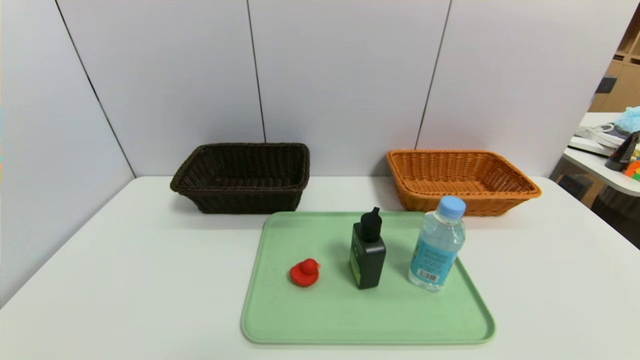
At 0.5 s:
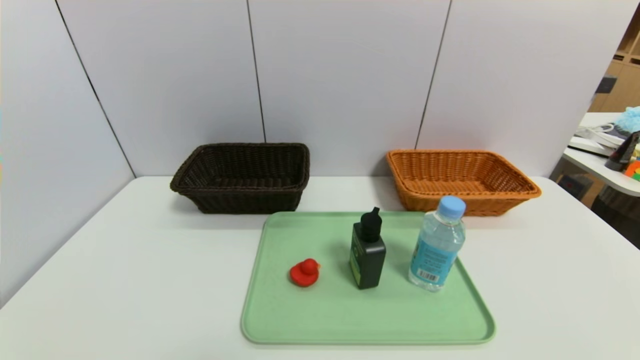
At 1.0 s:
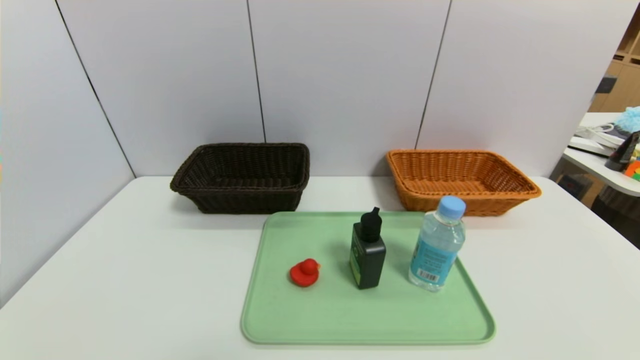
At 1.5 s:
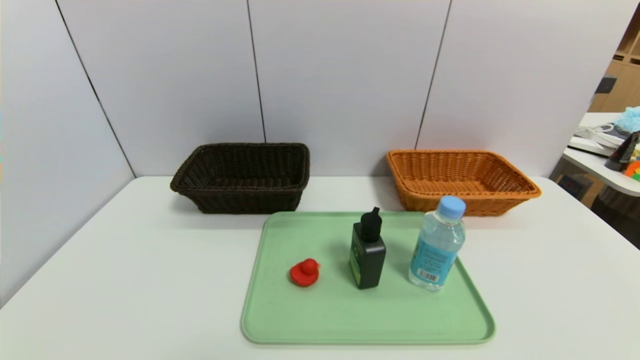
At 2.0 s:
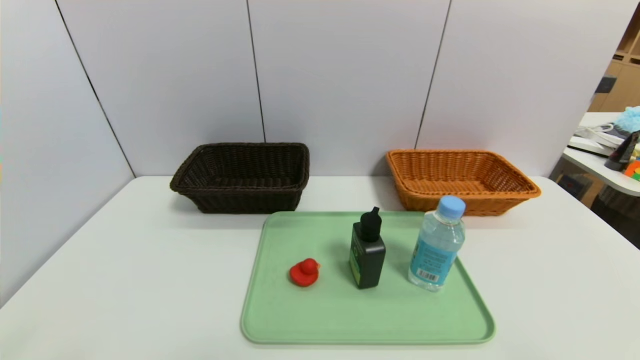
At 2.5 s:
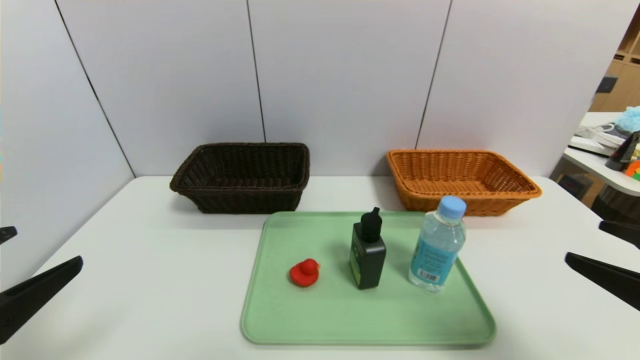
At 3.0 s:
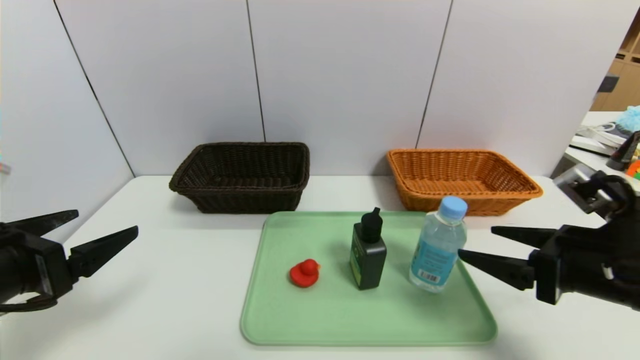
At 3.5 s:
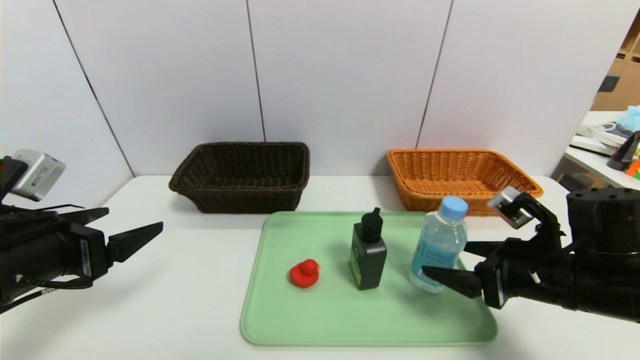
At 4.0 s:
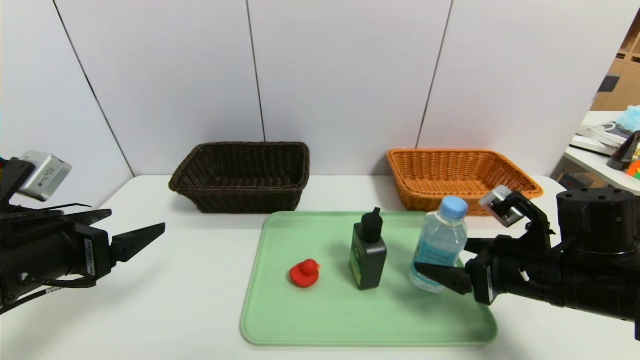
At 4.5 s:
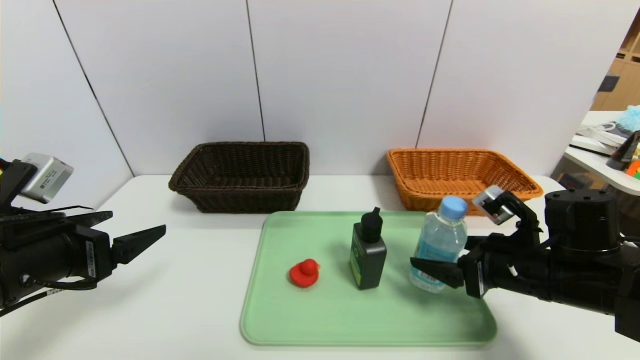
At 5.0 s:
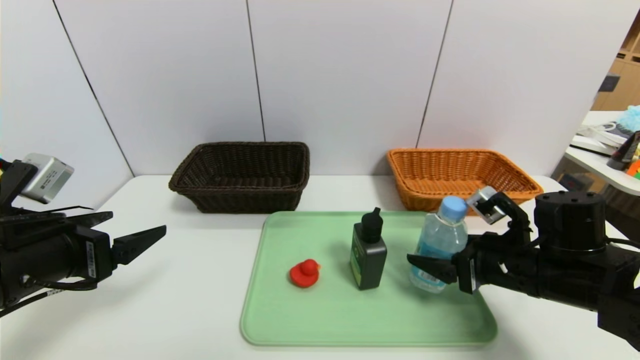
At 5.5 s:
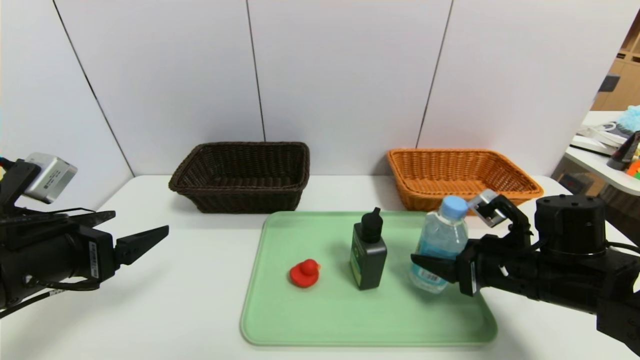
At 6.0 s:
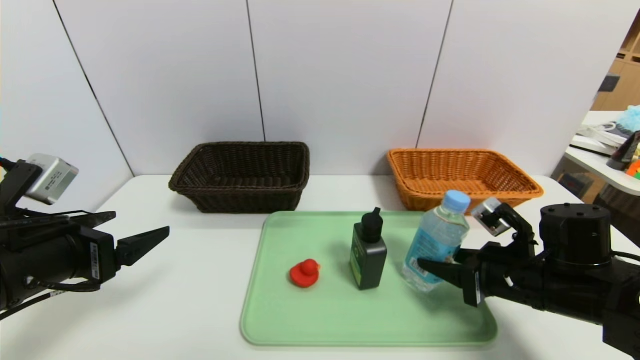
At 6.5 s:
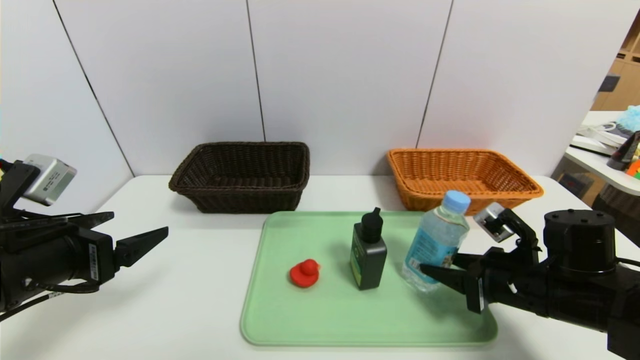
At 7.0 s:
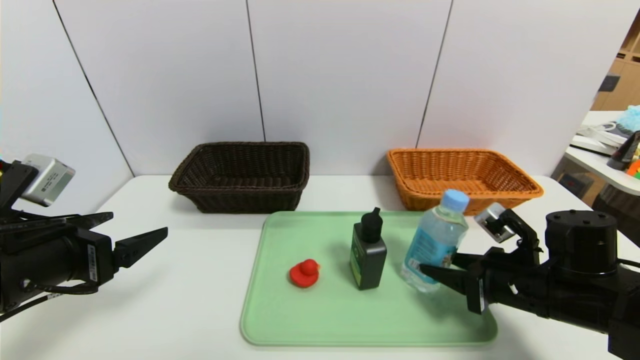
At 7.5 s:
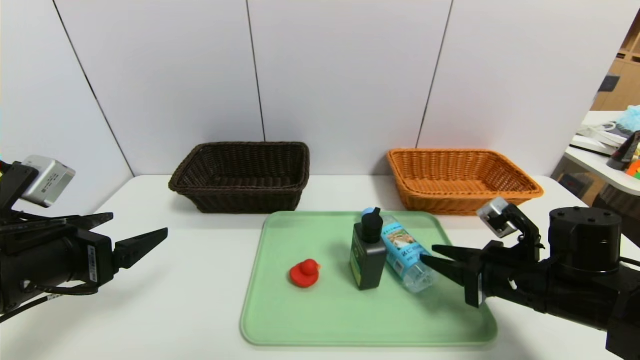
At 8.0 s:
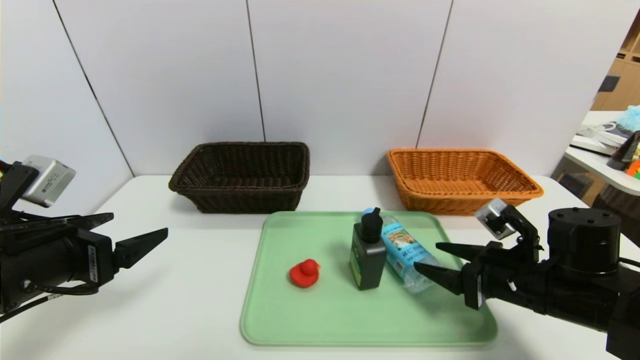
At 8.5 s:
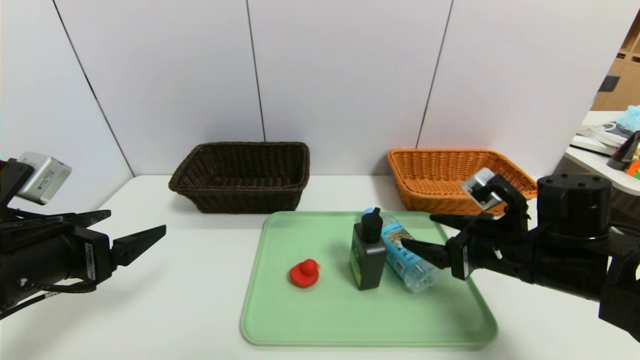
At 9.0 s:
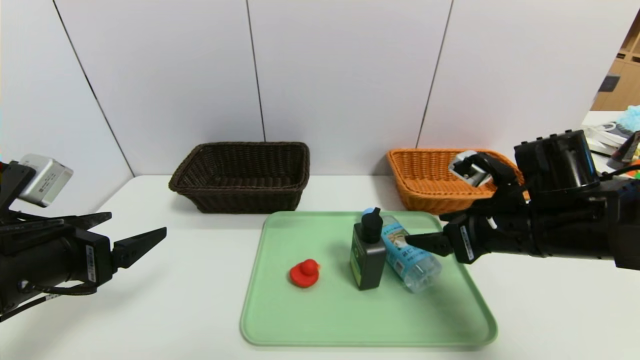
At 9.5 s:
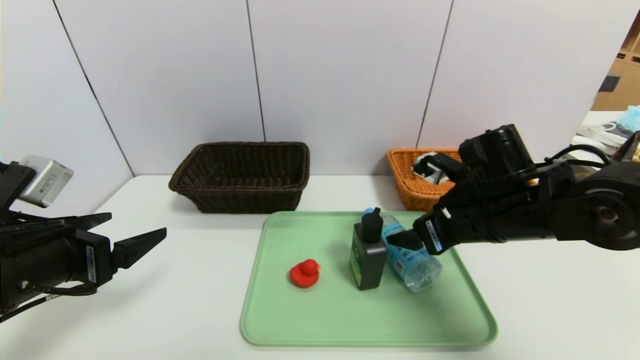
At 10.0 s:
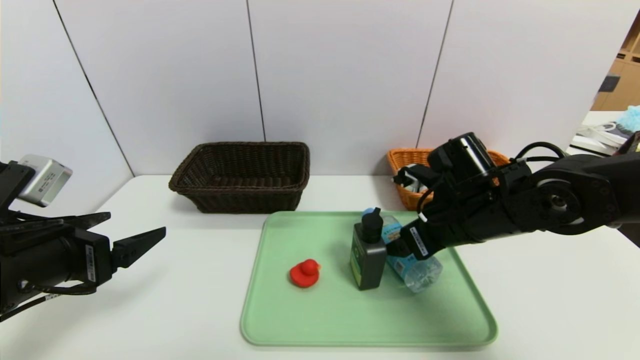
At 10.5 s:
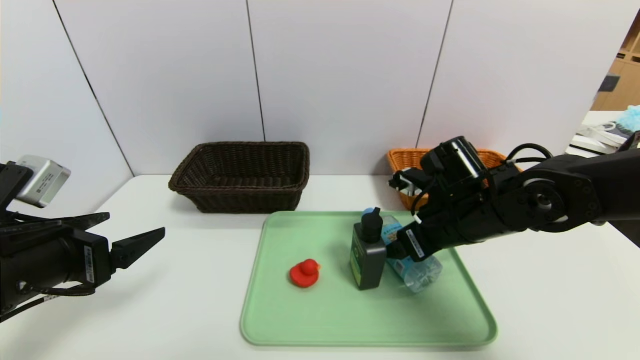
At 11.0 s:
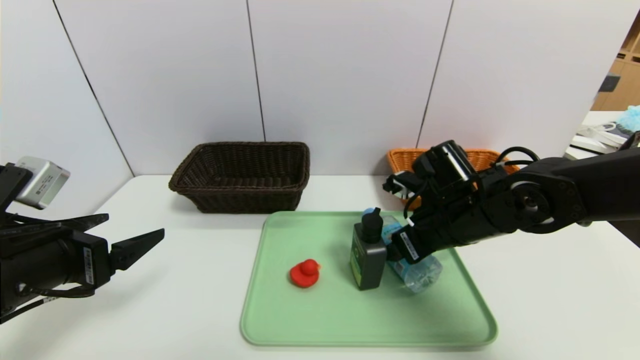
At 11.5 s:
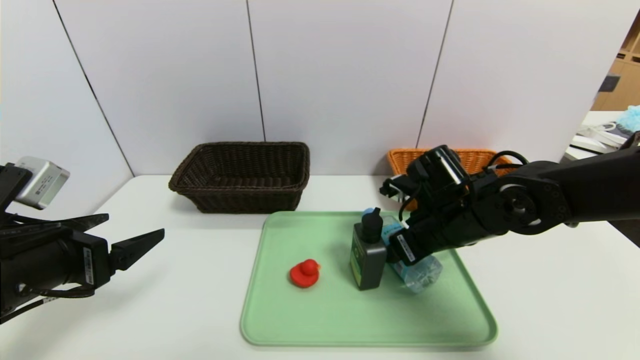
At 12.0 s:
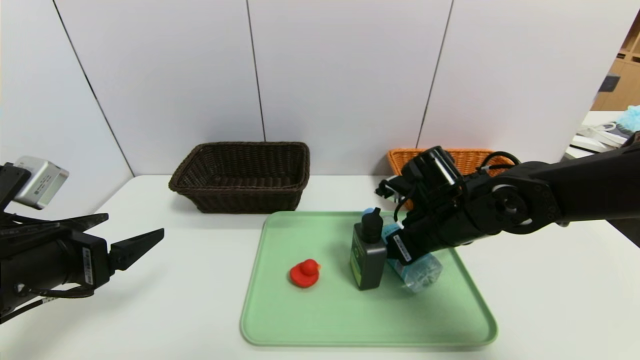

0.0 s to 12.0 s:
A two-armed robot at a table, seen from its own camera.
Task of the whole recording: place the food in the right basket with the right gripper, and place the non food items in the left basket with the left gripper.
2.0 to 4.0 s: Both grippers move forward, some 20 cm.
4.0 to 6.0 s: The right gripper closes up.
6.0 to 8.0 s: Neither gripper changes place.
8.0 to 10.0 s: The right gripper goes roughly 10 cm to the left, forward and upward.
10.0 to 12.0 s: The right gripper closes its fingers.

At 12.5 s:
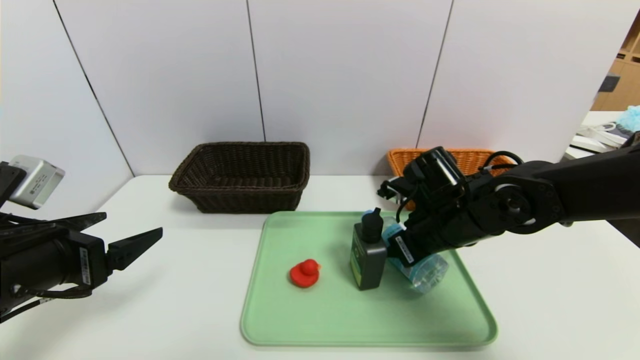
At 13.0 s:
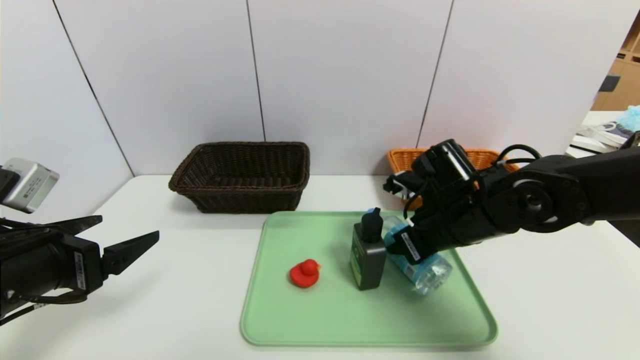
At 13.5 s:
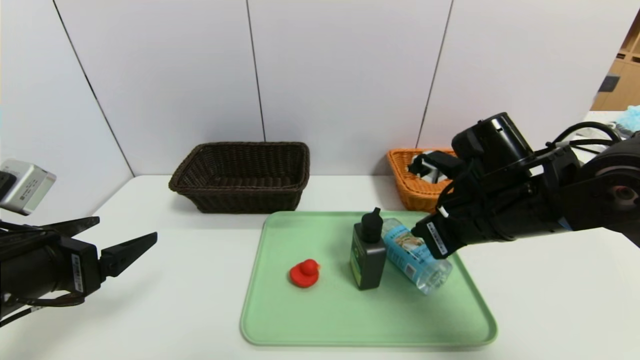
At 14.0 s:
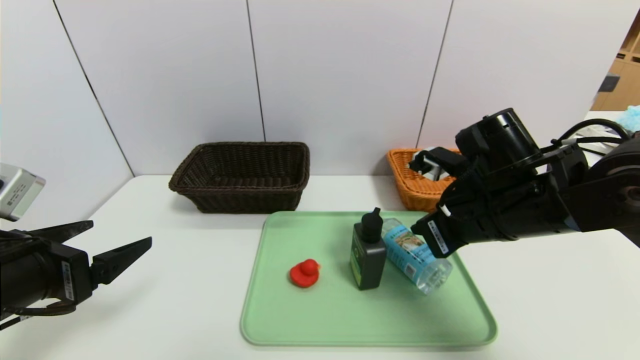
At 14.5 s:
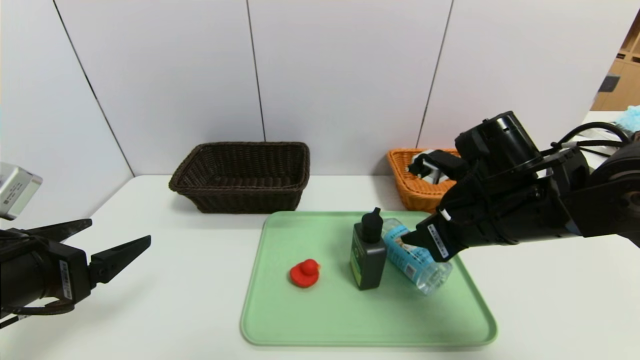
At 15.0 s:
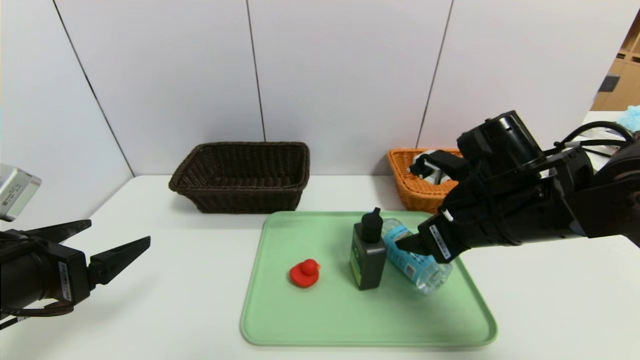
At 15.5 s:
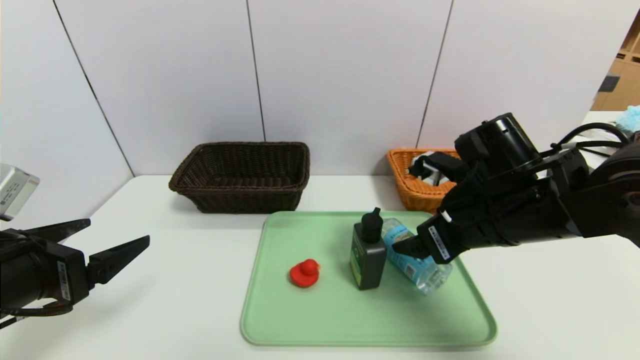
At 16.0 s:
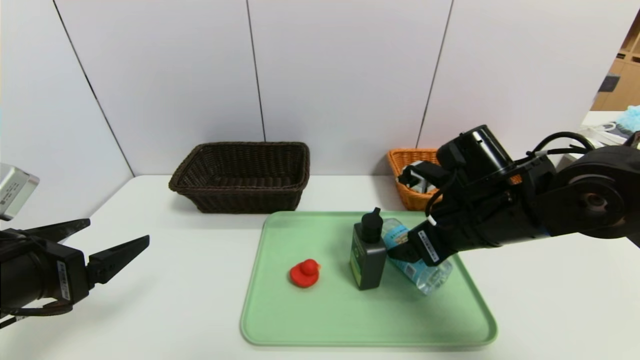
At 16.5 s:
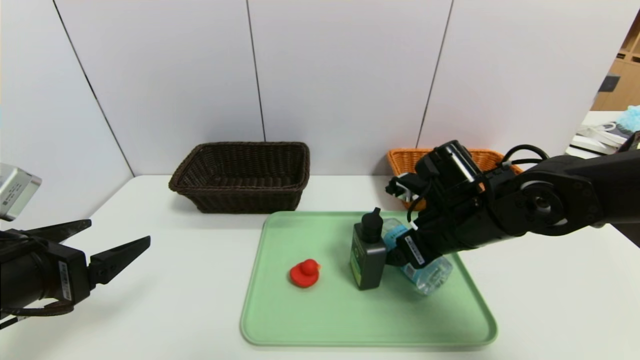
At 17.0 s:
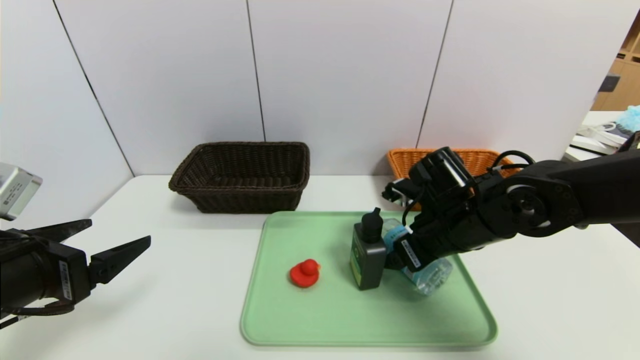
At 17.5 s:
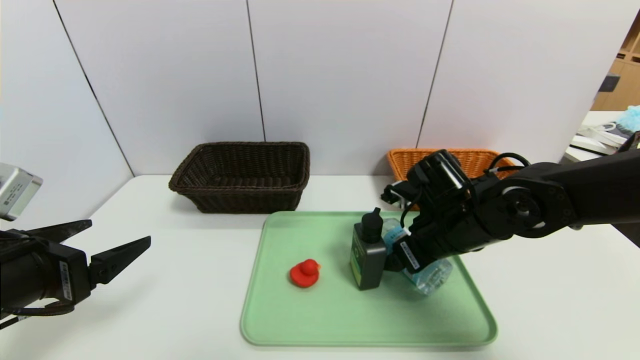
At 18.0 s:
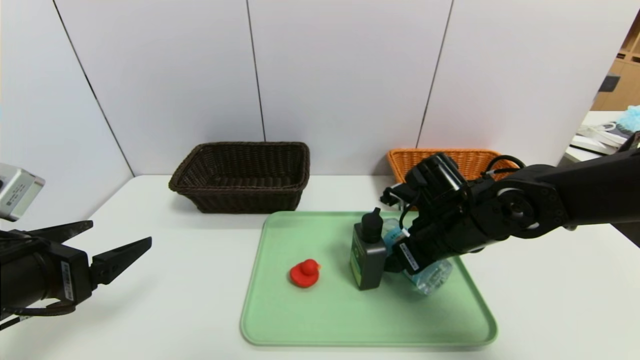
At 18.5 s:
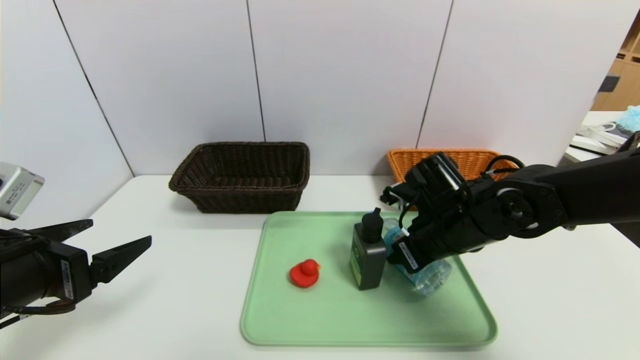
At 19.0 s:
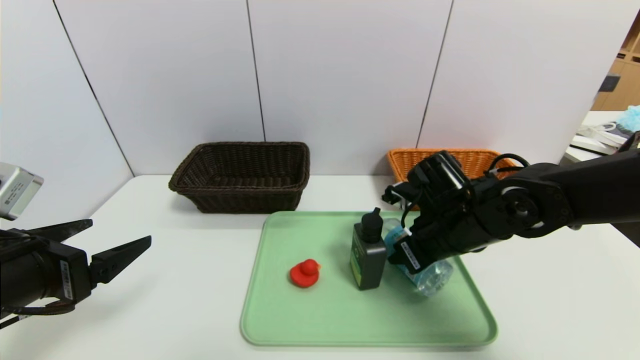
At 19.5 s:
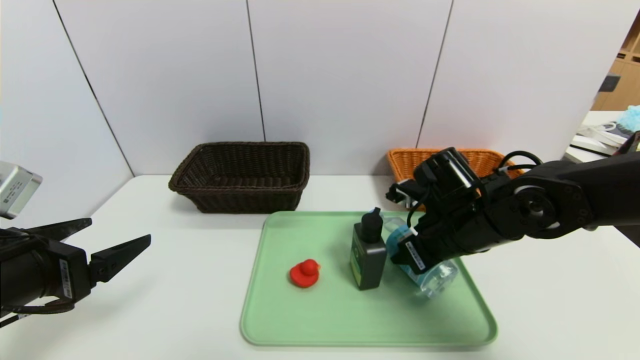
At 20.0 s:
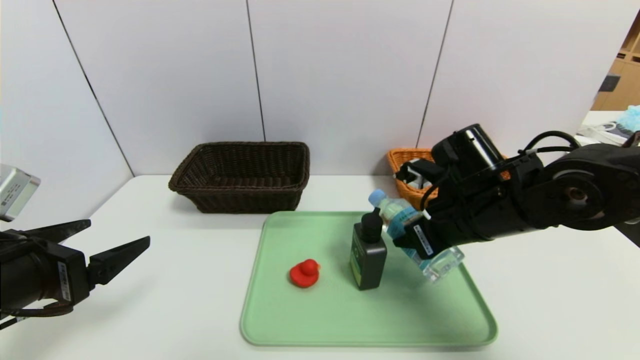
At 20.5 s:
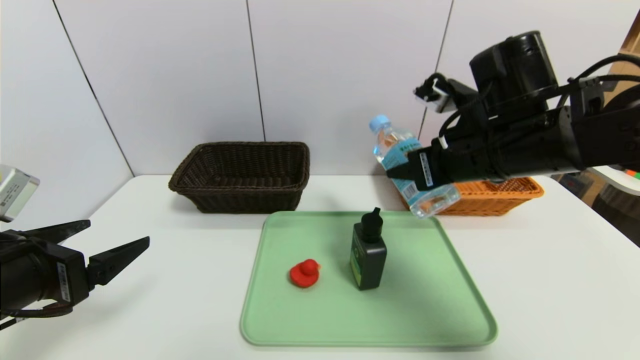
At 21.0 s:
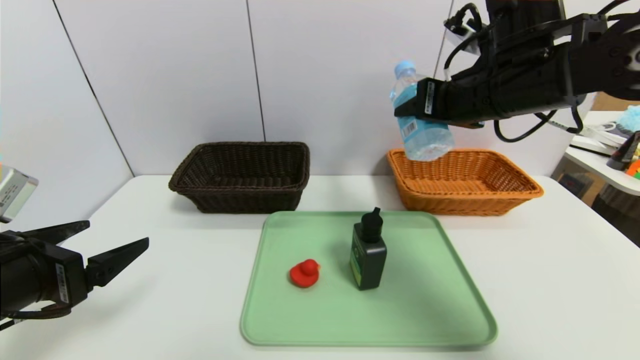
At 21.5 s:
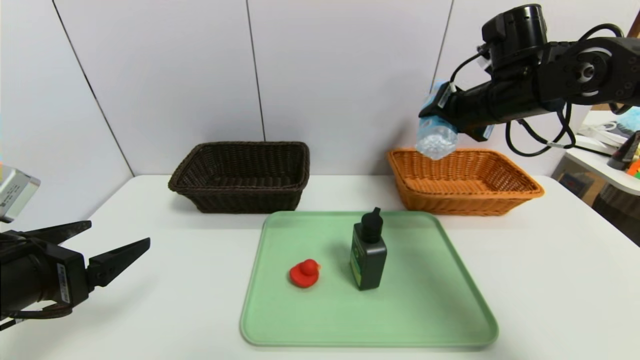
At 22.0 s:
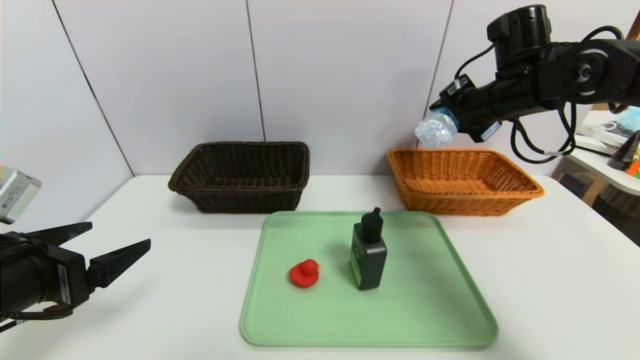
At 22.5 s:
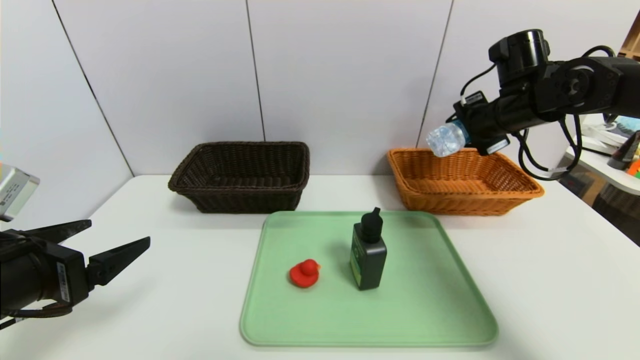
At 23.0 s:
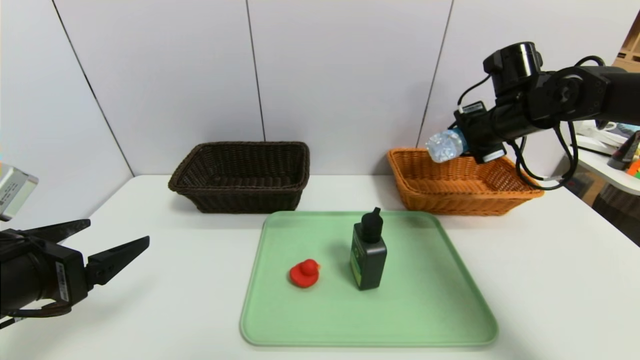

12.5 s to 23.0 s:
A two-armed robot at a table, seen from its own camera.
Task of the whole recording: place the food in the right basket with the right gripper, and place the non food items in the left basket with the left gripper.
12.5 to 14.5 s: The right gripper shifts roughly 10 cm upward and backward, and closes, then reopens.
14.5 to 16.5 s: The right gripper ends up approximately 5 cm from where it was, and opens.
16.5 to 19.0 s: The right gripper closes.
19.0 to 21.0 s: The right gripper is displaced upward by approximately 20 cm.
21.0 to 23.0 s: The right gripper is displaced forward, to the right and downward by approximately 15 cm.
